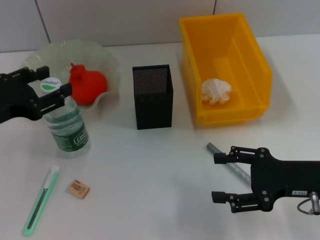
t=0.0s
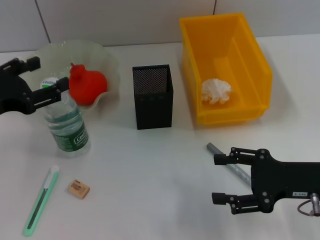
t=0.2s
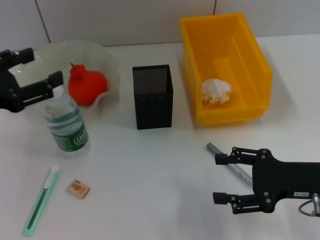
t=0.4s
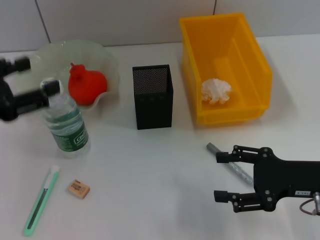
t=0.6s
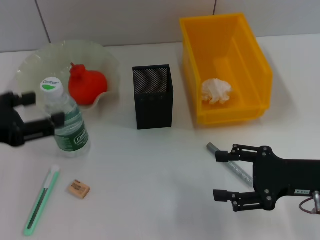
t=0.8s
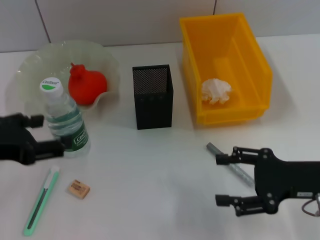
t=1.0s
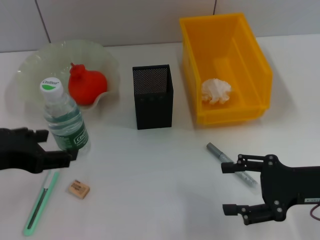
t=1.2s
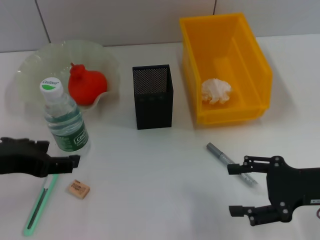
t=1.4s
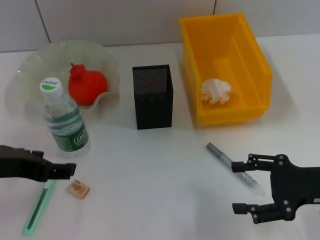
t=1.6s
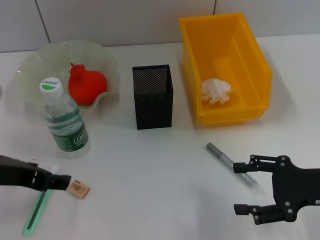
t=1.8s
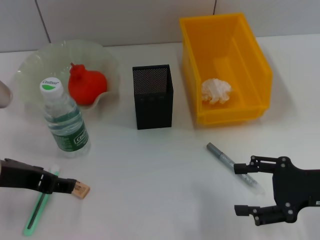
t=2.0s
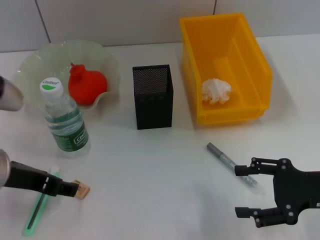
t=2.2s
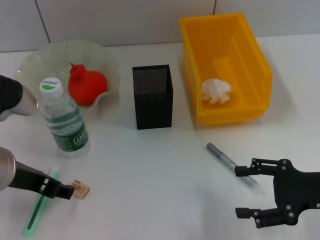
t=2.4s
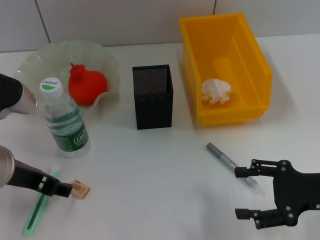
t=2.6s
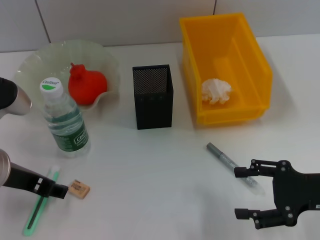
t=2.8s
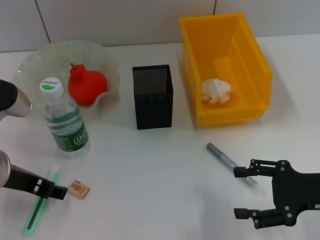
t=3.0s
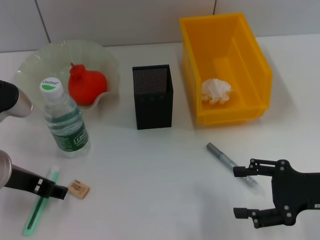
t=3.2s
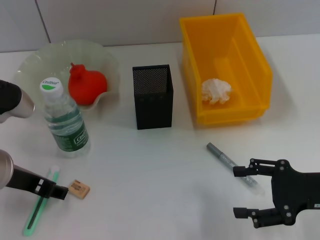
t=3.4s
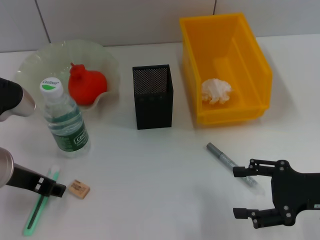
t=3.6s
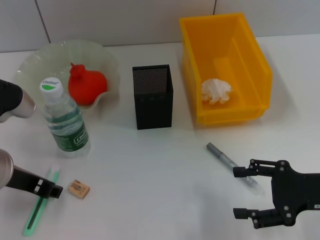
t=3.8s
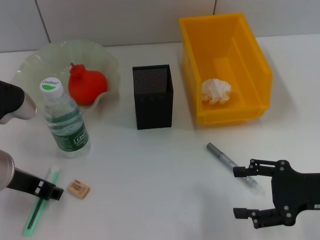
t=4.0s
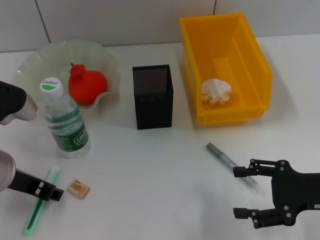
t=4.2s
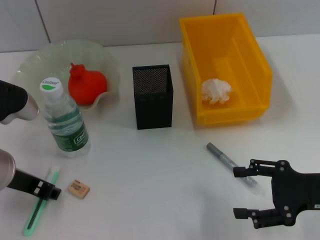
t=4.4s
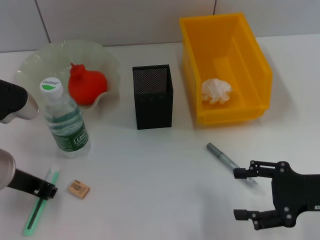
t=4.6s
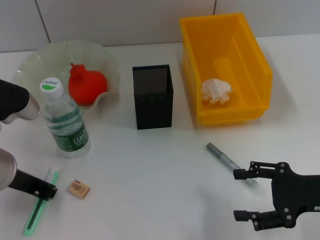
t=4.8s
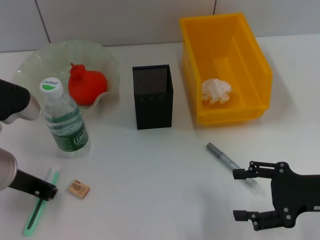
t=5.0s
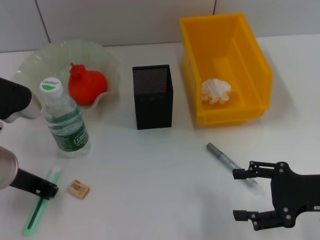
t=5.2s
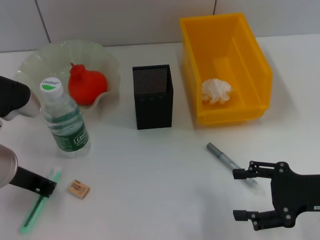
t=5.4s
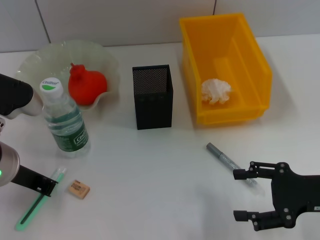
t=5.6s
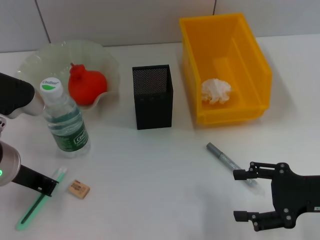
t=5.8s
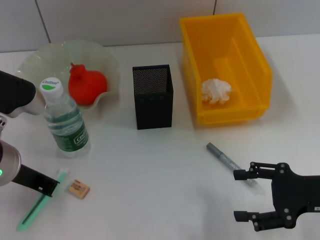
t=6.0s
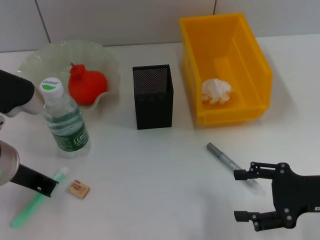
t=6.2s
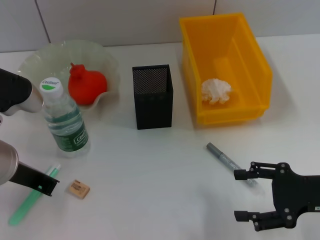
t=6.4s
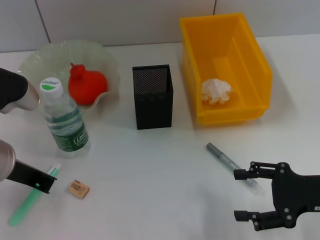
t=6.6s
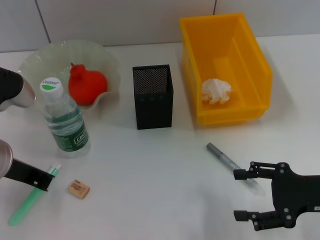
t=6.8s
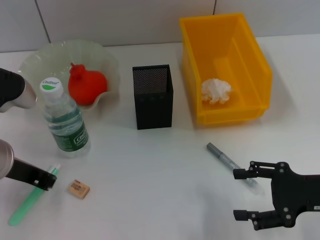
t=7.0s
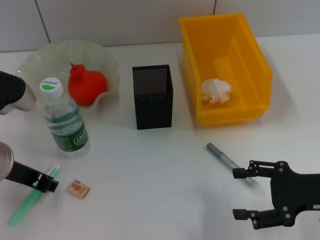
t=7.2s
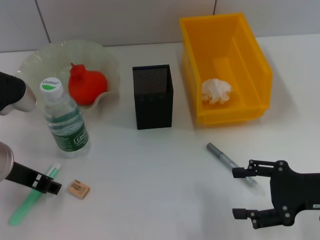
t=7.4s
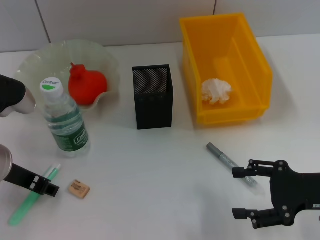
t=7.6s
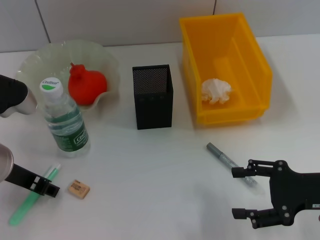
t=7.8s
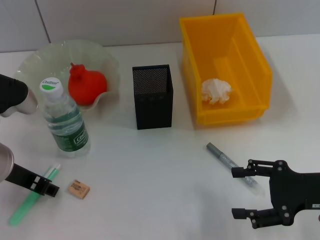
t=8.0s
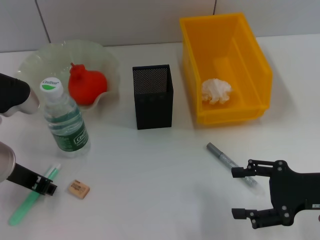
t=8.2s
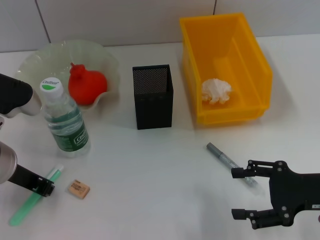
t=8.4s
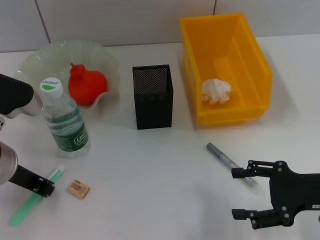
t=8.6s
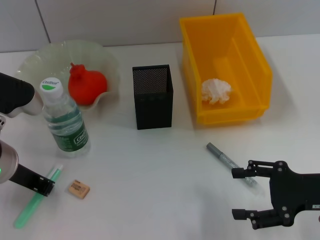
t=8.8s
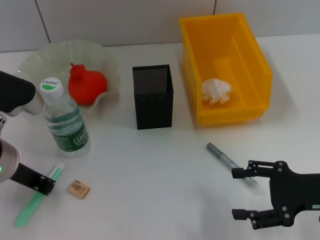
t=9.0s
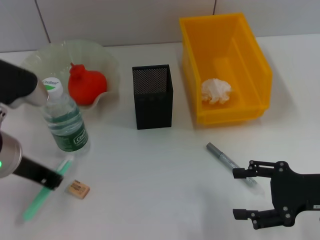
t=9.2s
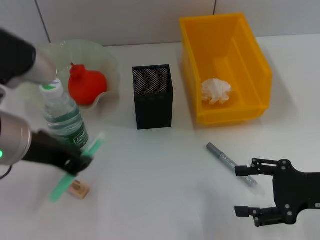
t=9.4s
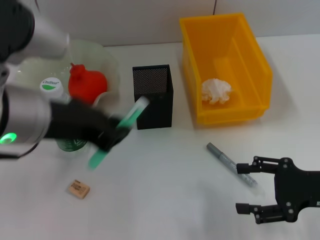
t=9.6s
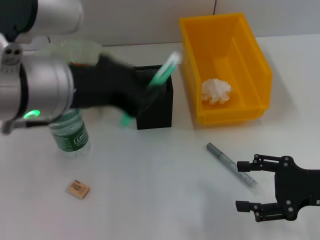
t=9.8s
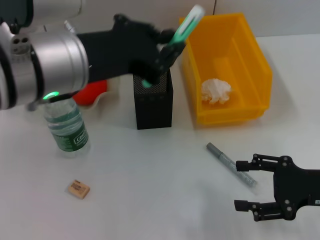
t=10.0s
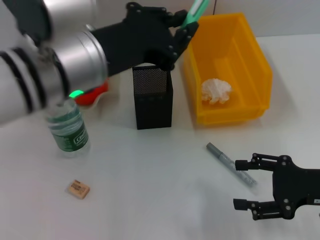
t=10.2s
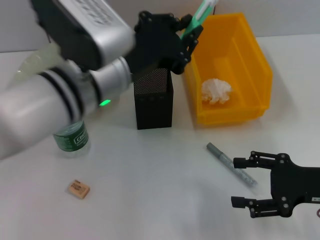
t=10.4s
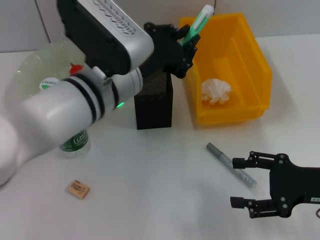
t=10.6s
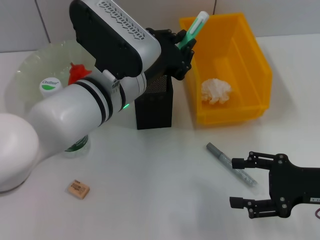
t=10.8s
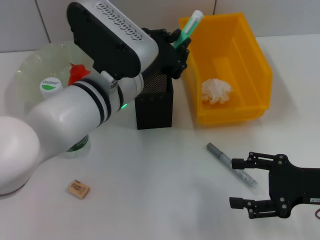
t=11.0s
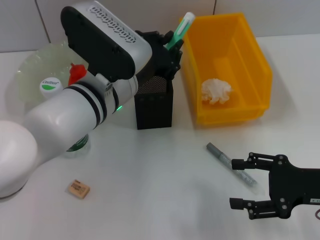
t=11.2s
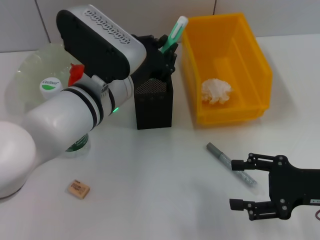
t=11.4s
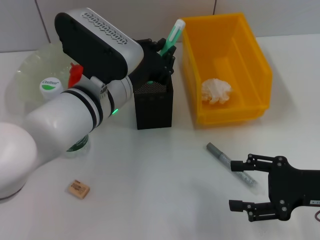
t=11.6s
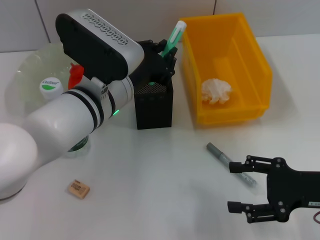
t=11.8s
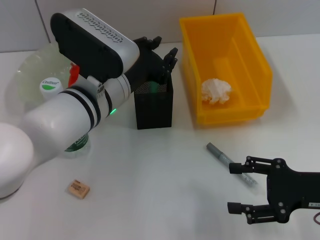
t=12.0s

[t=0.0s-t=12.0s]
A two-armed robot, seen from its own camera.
Step, t=0.0s to t=8.2s: Grab the blue utility knife with the left hand.
t=0.0s to t=1.6s: The left gripper ends up roughly 10 cm from where it was, and opens up.
t=1.6s to t=3.0s: The left gripper shifts by approximately 5 cm.
t=3.0s to t=4.4s: The left gripper closes.
t=4.4s to t=6.0s: The left gripper closes its fingers.
t=6.0s to t=7.6s: The left gripper opens.
t=7.6s to t=9.0s: The left gripper closes up.
t=9.0s to t=10.4s: The left gripper shifts some 15 cm to the right and upward.
t=10.4s to t=12.0s: The left gripper travels downward by roughly 5 cm.

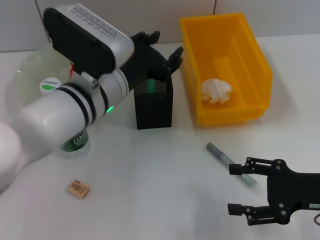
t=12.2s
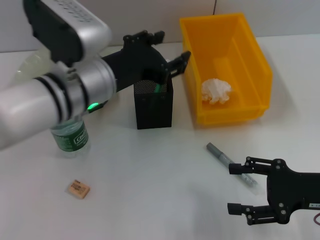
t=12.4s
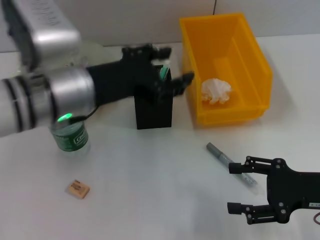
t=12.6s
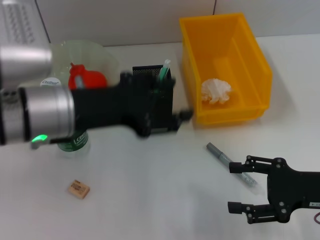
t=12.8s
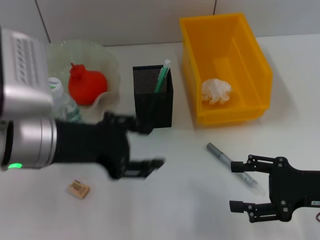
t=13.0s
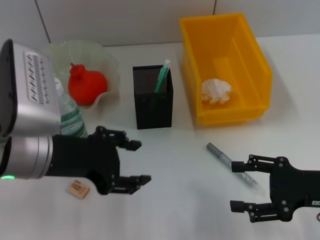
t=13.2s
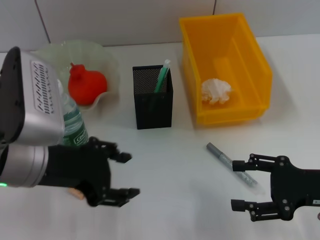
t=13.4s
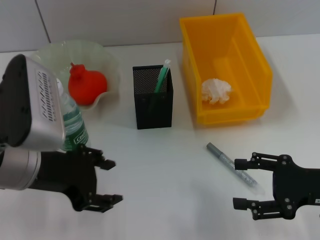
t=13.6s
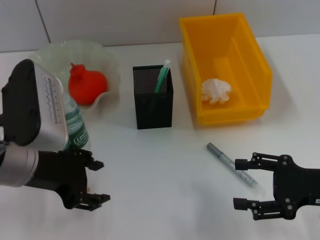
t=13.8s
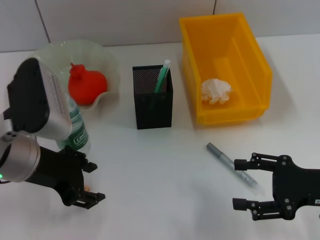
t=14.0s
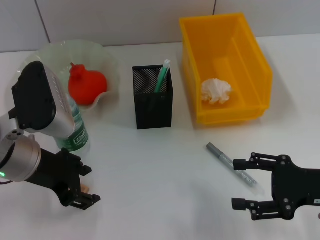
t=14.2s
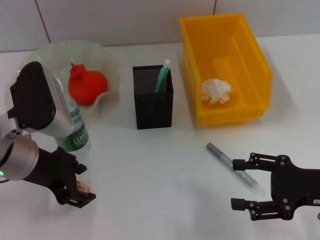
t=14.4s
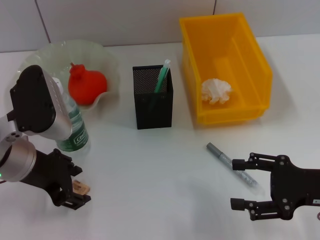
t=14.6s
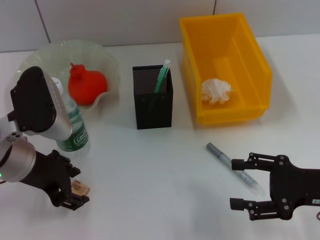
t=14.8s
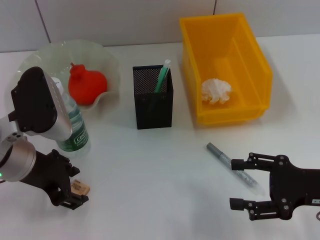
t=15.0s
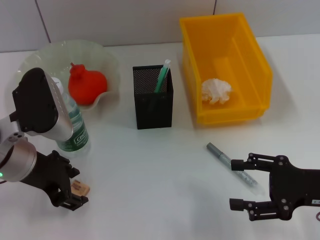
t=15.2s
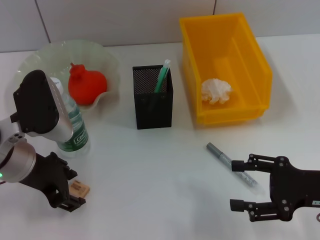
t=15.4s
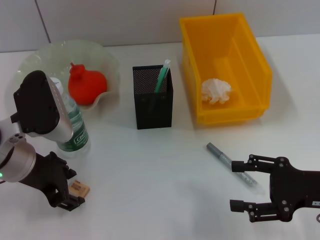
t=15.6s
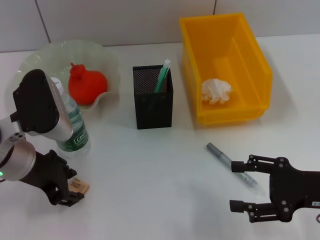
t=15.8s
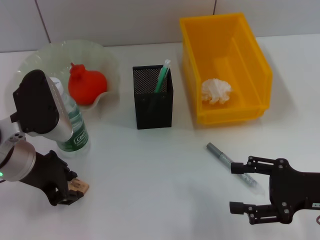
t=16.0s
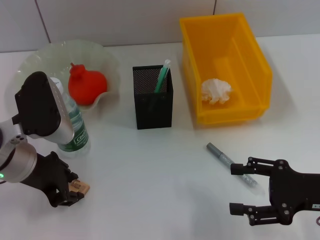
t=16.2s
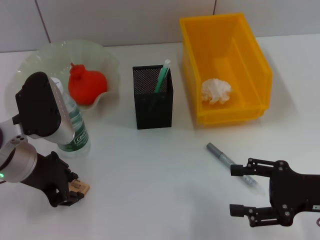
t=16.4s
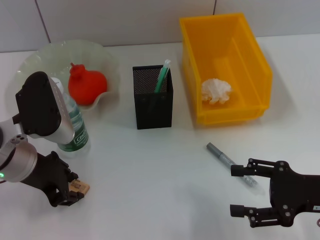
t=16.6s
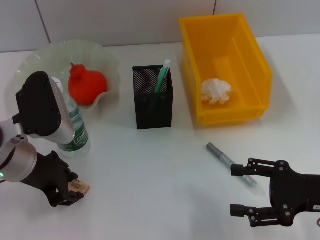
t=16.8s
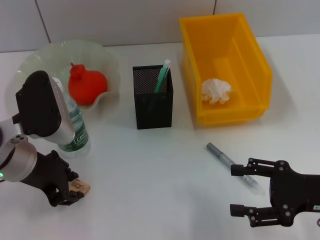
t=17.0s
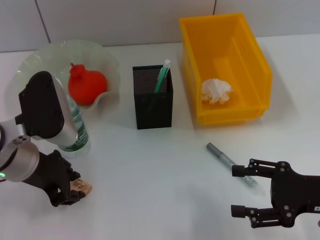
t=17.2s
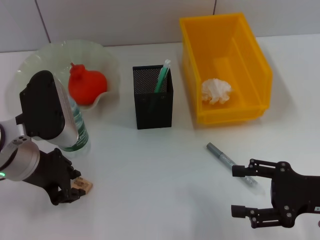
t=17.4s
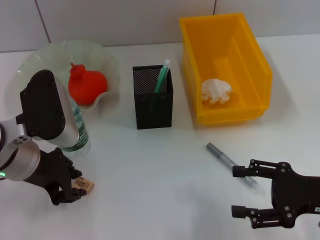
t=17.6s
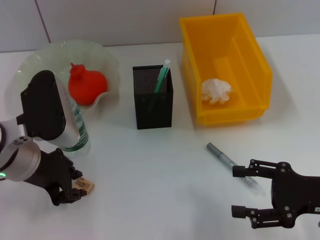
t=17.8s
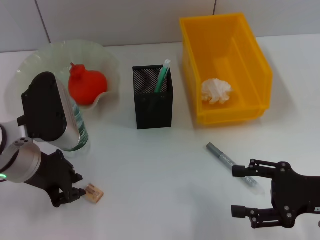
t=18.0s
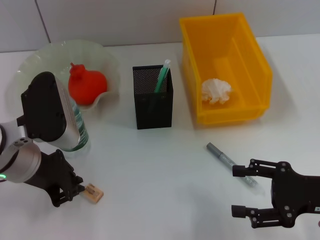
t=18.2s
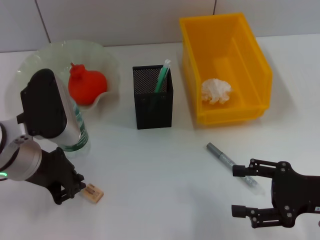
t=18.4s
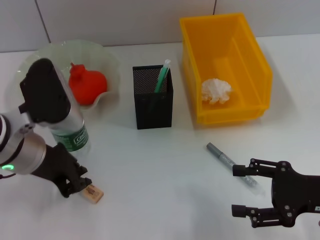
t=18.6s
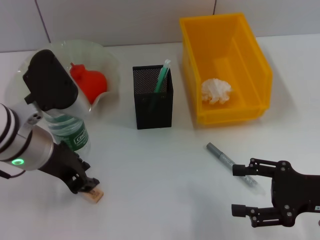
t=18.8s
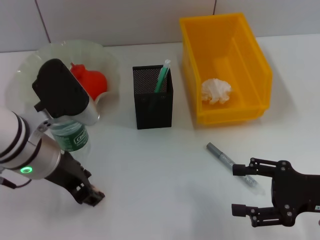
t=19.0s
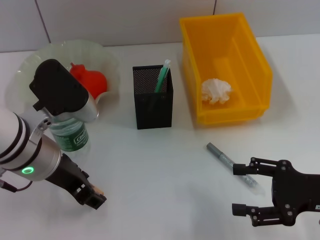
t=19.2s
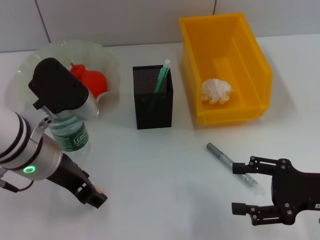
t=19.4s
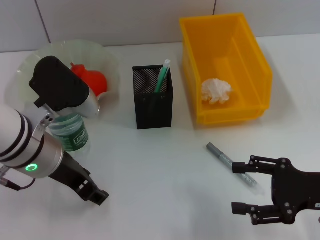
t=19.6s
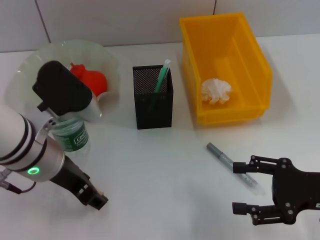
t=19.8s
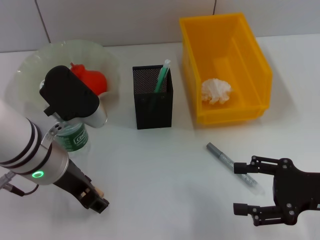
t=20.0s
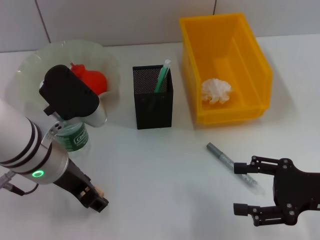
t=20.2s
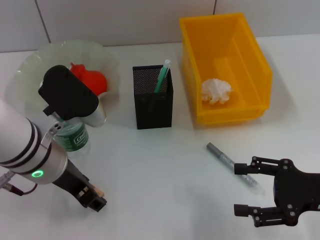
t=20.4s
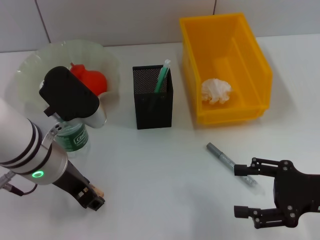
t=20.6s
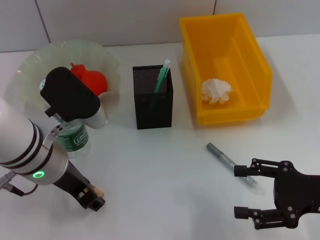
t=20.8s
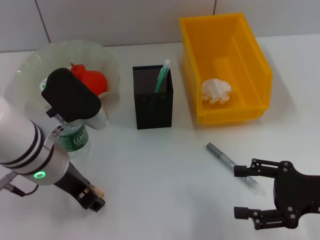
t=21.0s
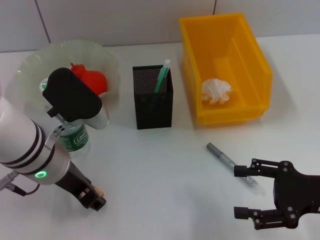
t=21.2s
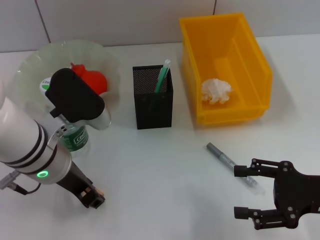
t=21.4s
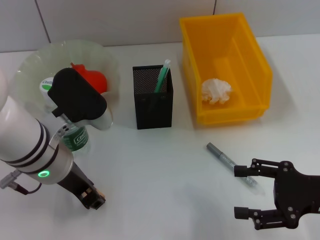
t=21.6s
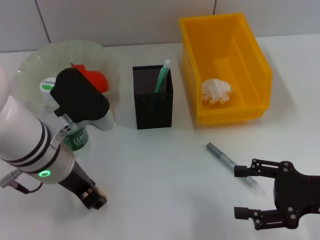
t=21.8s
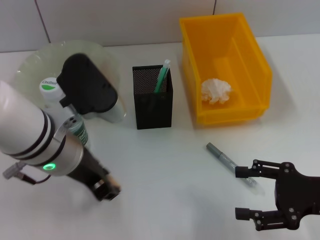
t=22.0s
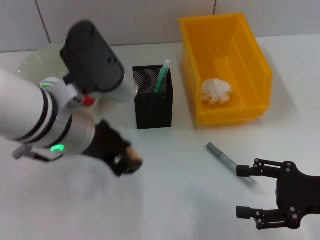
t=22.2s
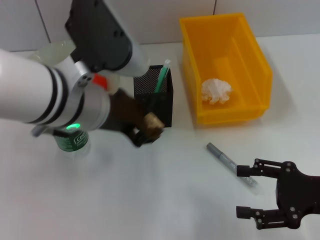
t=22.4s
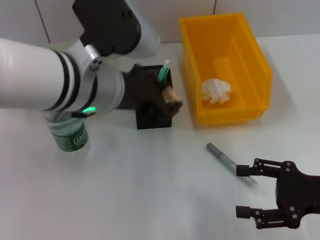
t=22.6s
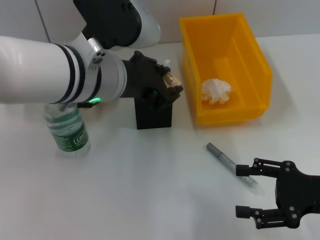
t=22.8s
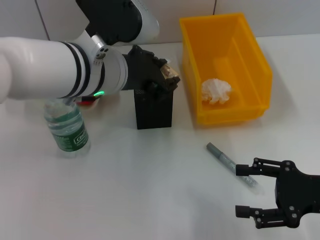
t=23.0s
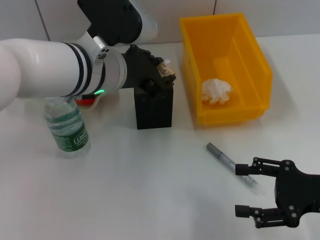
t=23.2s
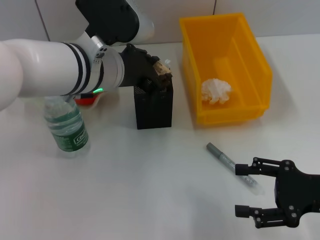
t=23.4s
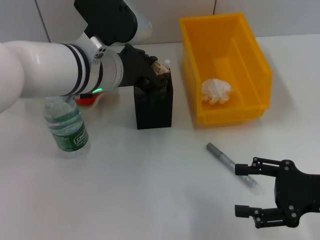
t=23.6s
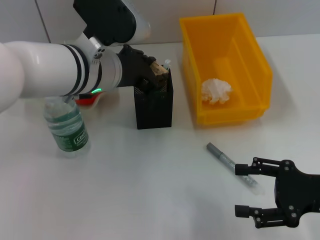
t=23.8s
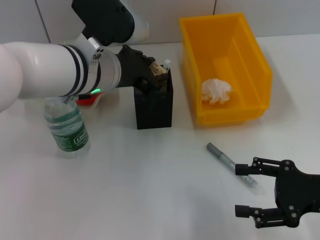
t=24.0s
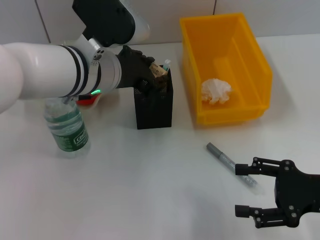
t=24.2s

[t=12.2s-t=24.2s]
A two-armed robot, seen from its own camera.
Step, t=12.4s to t=21.2s: Grab the eraser with the left hand.
t=12.2s to t=13.8s: The left gripper is displaced to the left and backward by roughly 10 cm, and opens.
t=13.8s to t=15.2s: The grippers make only small movements.
t=15.2s to t=16.6s: The left gripper closes its fingers.
t=16.6s to t=18.2s: Both grippers stay put.
t=18.2s to t=19.8s: The left gripper opens.
t=19.8s to t=21.2s: The two grippers keep their place.
t=21.2s to t=22.6s: The left gripper travels upward and to the right by some 10 cm.
t=22.6s to t=24.2s: The left gripper goes about 5 cm forward.
